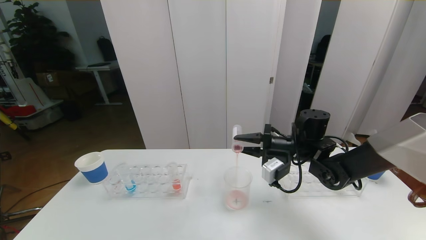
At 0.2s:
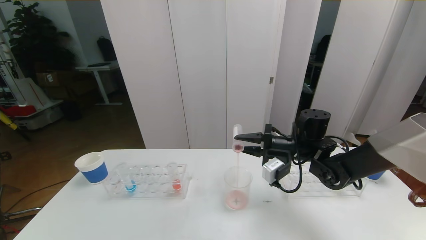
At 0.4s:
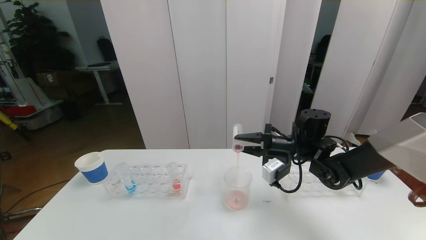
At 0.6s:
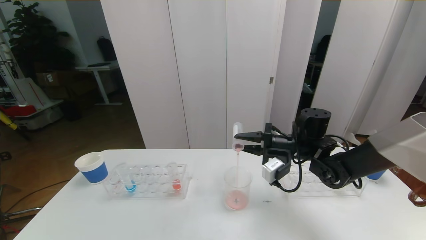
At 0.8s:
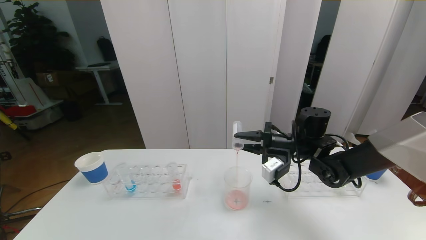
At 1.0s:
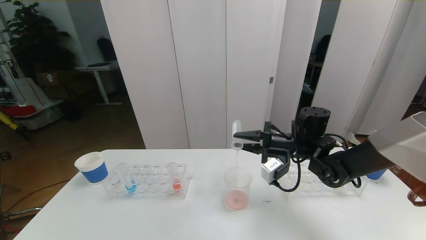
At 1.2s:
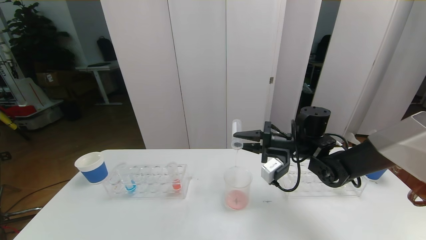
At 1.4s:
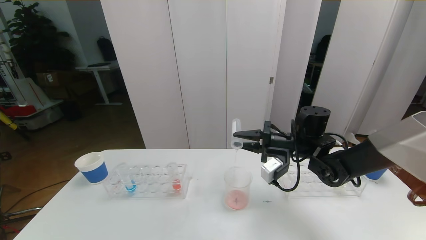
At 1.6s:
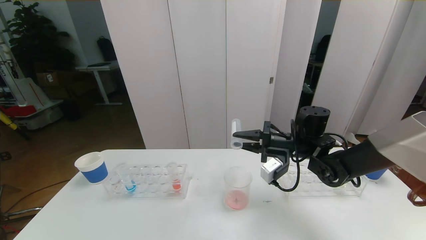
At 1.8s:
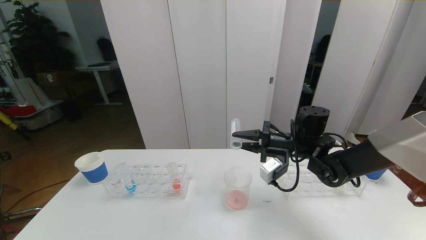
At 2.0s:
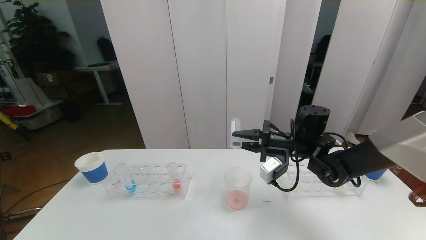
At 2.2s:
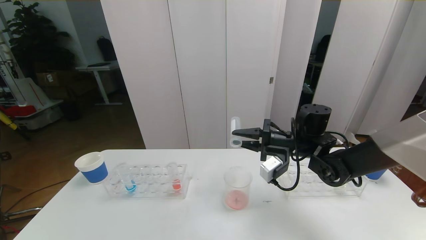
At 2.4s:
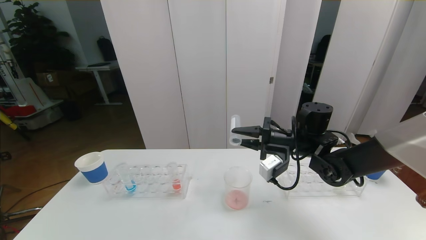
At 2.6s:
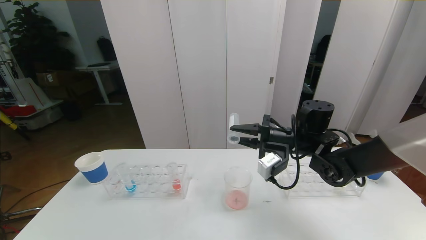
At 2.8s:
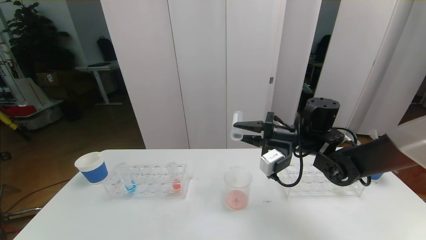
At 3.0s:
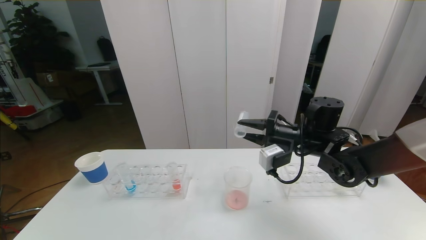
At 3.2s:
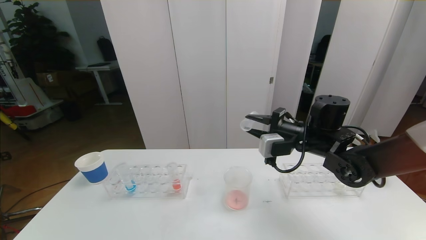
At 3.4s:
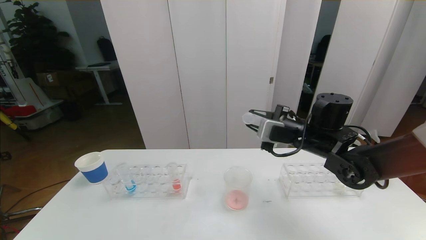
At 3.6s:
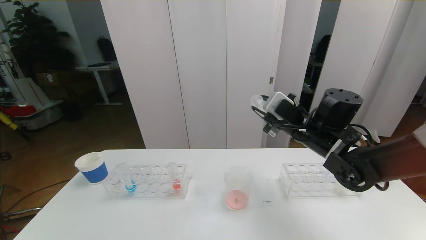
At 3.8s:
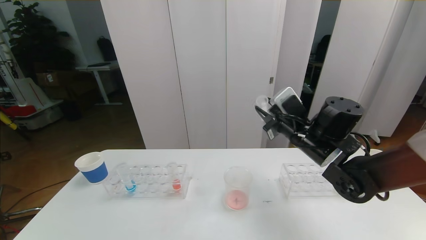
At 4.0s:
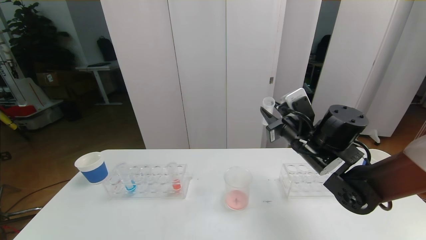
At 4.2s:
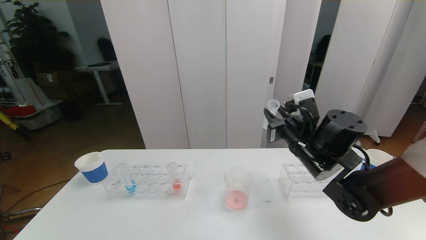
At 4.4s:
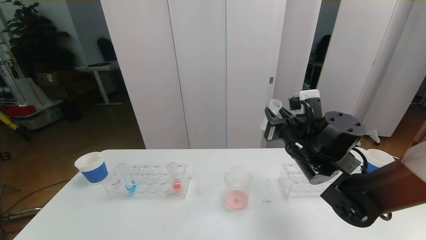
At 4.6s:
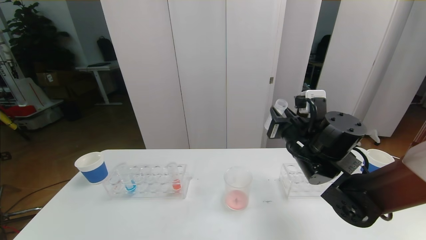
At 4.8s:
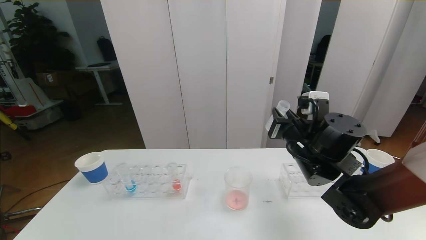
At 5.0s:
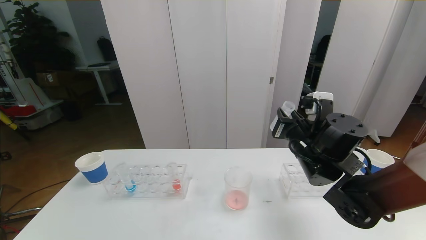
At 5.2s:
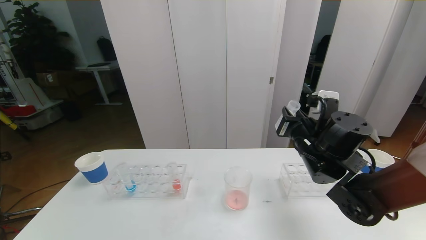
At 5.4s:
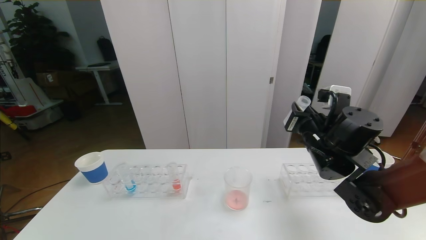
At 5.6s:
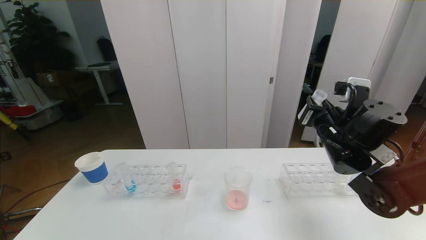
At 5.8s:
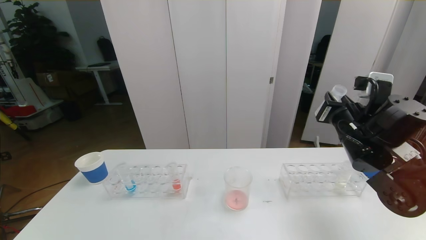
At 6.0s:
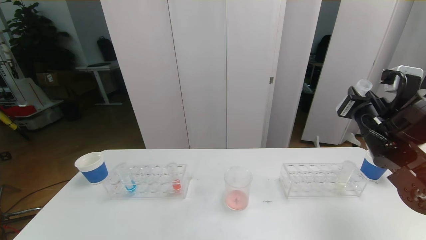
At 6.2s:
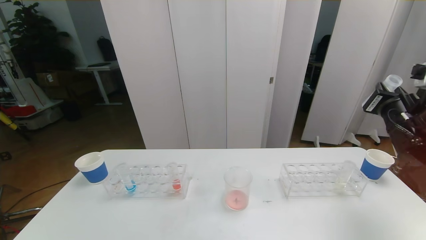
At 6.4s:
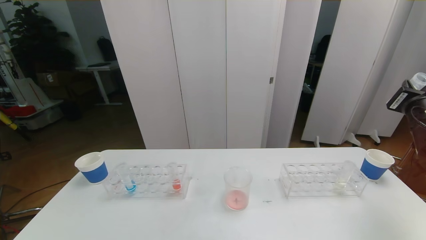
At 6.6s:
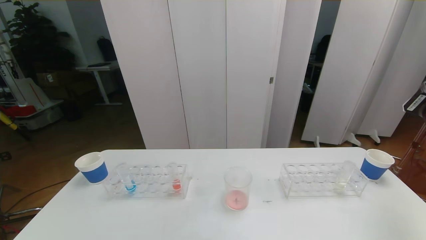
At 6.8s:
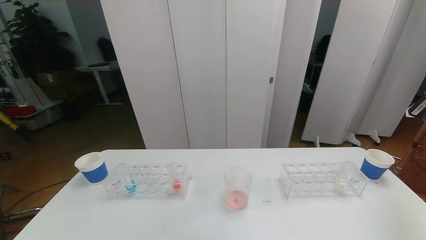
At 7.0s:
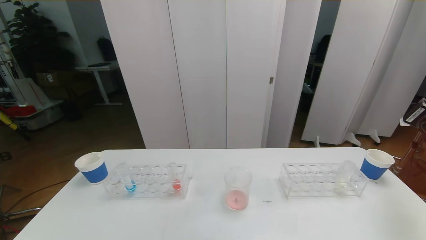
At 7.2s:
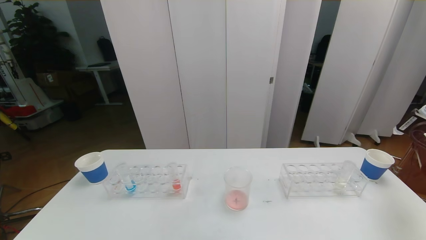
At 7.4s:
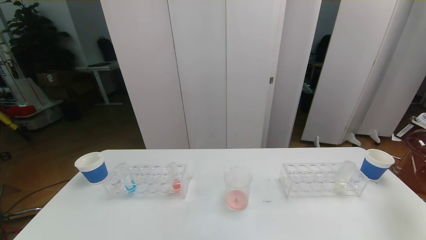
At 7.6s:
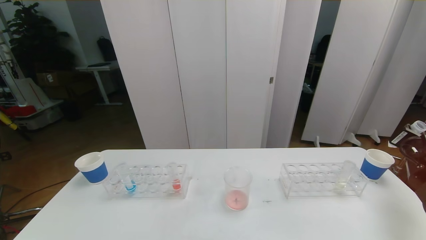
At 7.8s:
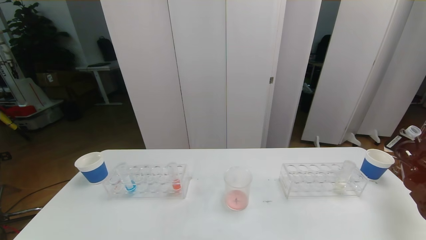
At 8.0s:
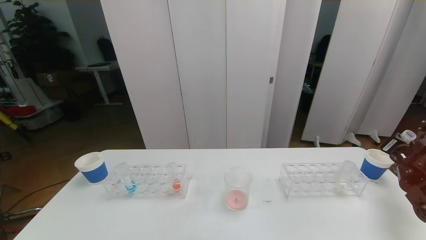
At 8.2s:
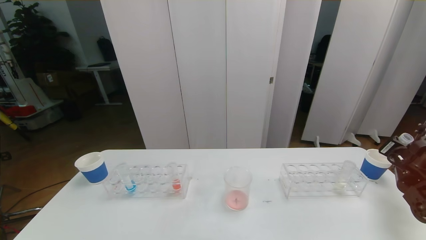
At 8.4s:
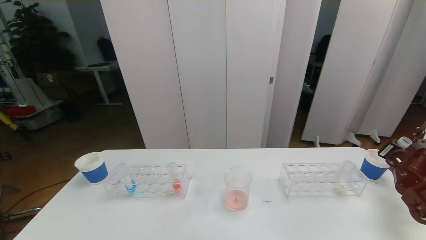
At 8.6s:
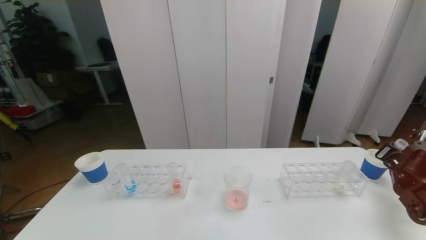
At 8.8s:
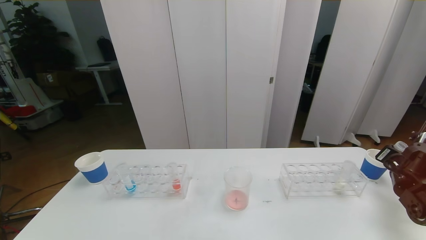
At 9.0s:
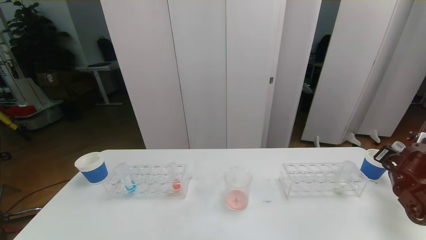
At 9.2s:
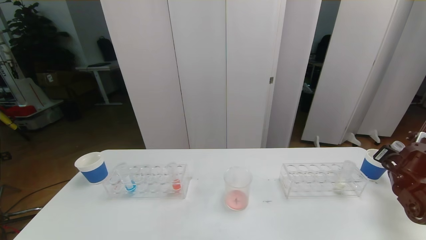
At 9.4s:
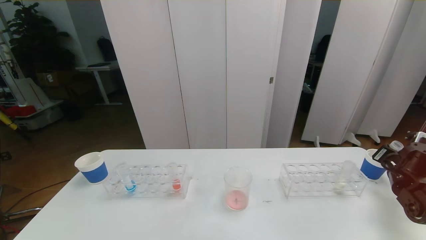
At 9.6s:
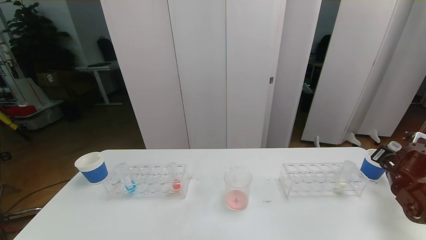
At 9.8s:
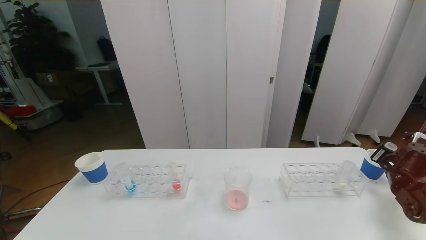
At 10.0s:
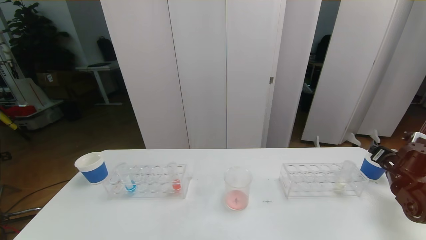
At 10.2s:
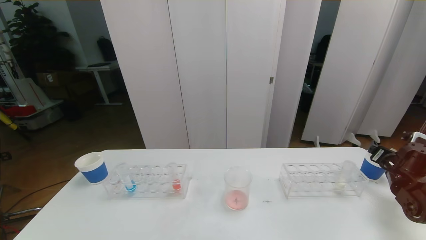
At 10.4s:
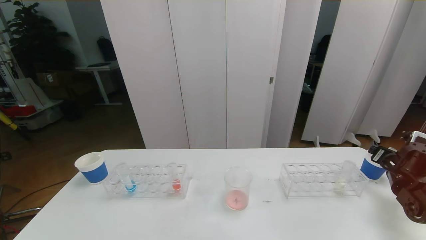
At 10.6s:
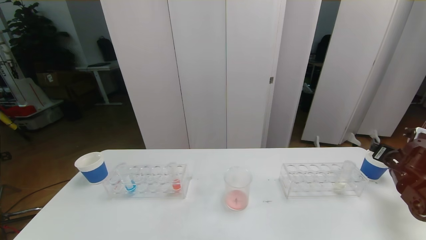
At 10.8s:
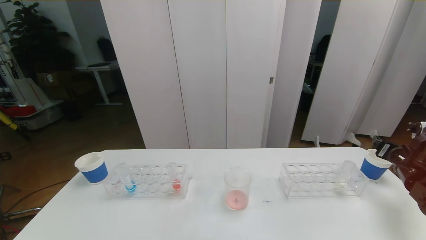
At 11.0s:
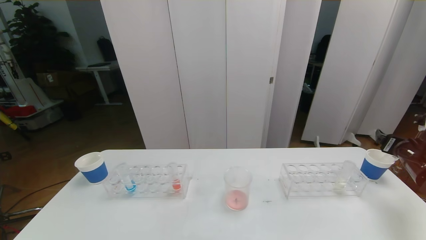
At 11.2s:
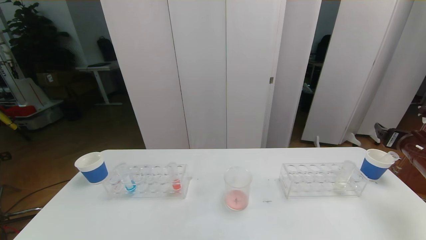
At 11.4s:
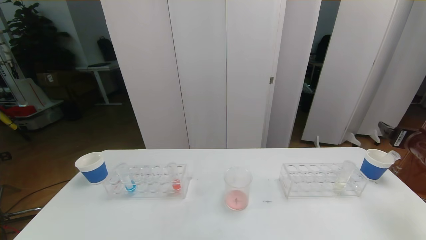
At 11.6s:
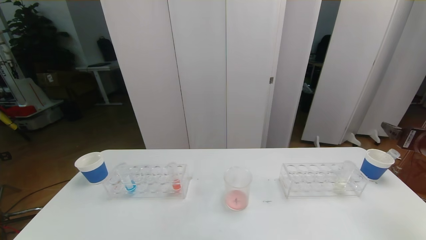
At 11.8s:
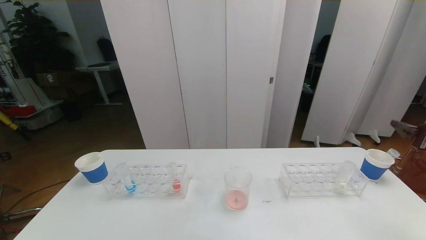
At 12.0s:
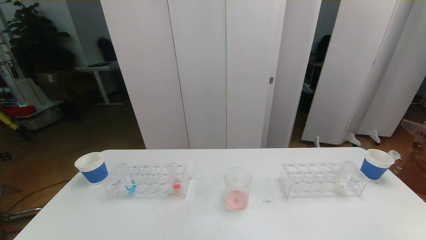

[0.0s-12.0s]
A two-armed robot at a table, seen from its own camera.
Task of the whole recording: pick up the test tube with red pigment the test tube with blue pigment and the test tube with white pigment by grippers and pour them into the beaker.
0.0s to 3.0s: The grippers stay close to where they were, moving slightly.
3.0s to 4.4s: The right gripper changes place by roughly 5 cm.
4.4s to 6.0s: The right gripper travels to the right by some 15 cm.
6.0s to 7.6s: The right gripper heads to the right and downward, covering about 15 cm.
7.6s to 9.0s: The right gripper heads downward, covering approximately 5 cm.
9.0s to 10.4s: The right gripper opens.
10.4s to 12.0s: The right gripper goes about 25 cm upward and backward.

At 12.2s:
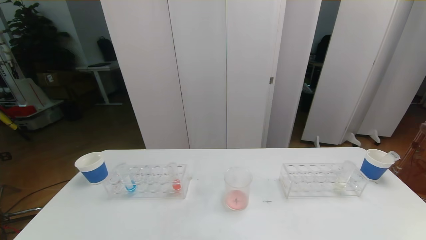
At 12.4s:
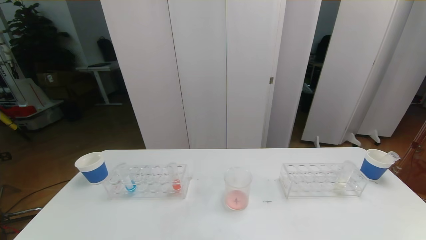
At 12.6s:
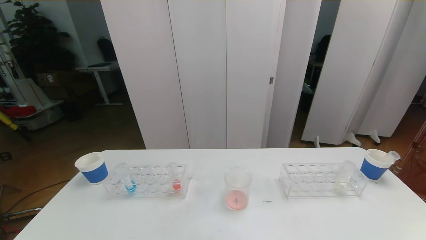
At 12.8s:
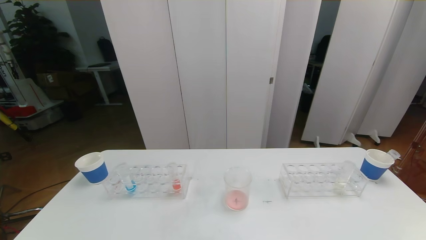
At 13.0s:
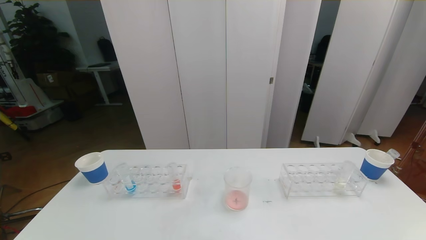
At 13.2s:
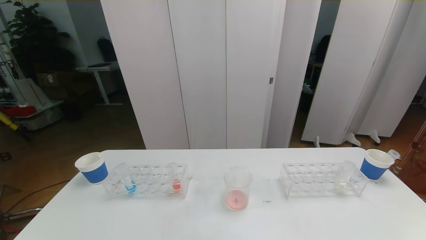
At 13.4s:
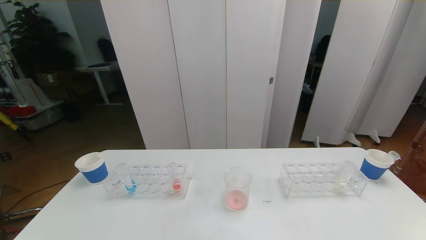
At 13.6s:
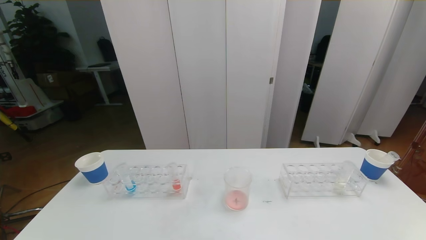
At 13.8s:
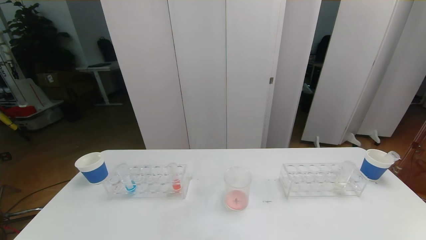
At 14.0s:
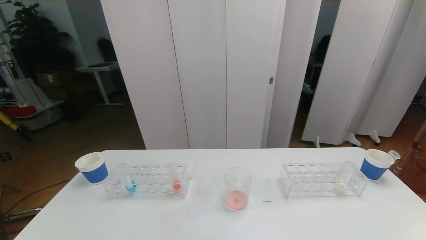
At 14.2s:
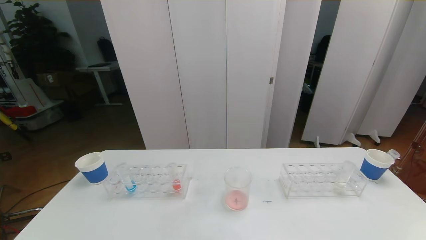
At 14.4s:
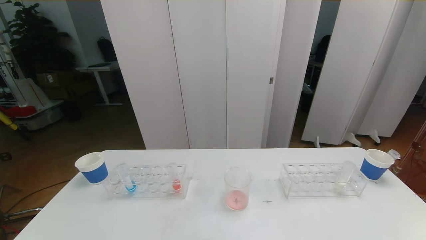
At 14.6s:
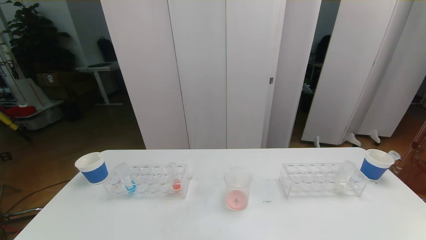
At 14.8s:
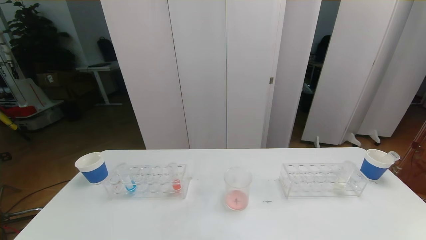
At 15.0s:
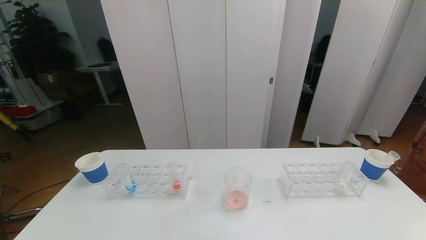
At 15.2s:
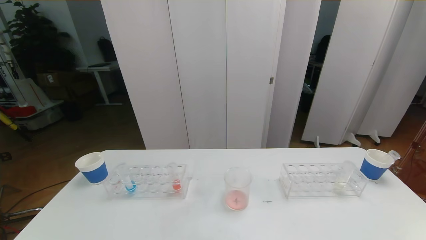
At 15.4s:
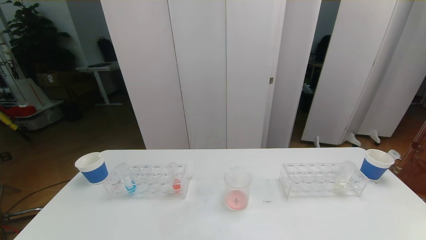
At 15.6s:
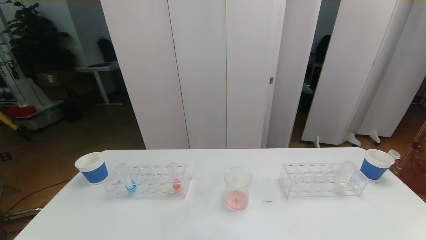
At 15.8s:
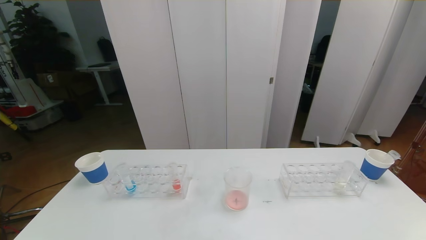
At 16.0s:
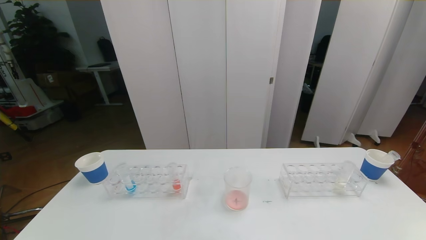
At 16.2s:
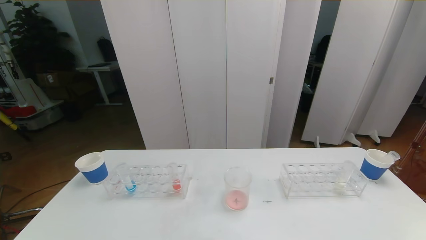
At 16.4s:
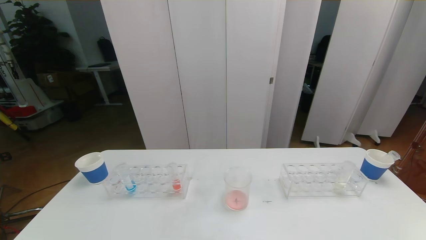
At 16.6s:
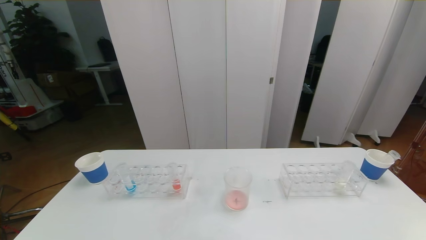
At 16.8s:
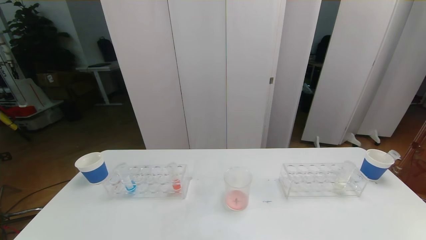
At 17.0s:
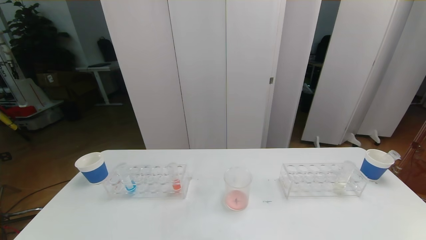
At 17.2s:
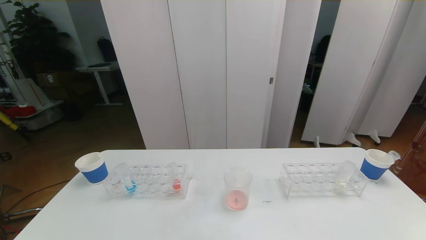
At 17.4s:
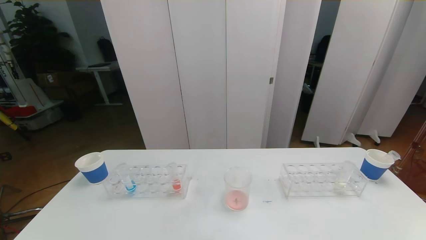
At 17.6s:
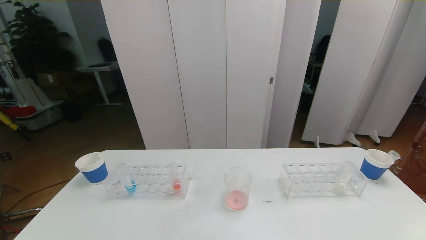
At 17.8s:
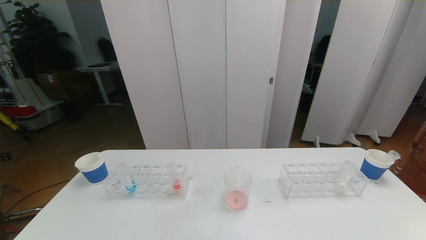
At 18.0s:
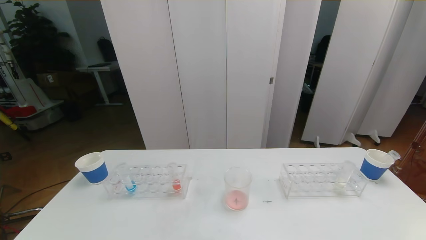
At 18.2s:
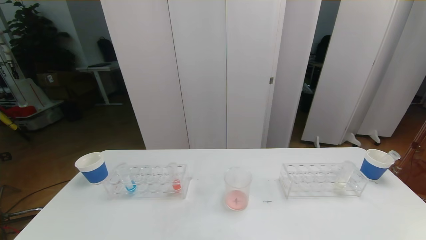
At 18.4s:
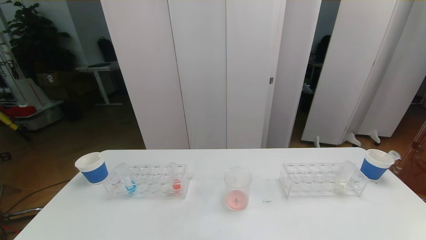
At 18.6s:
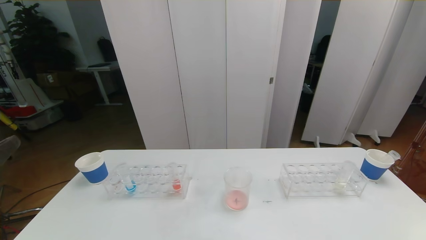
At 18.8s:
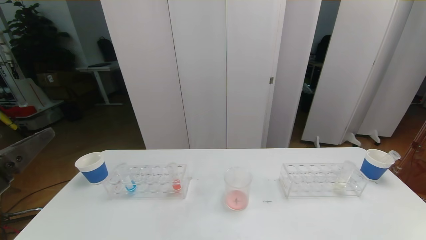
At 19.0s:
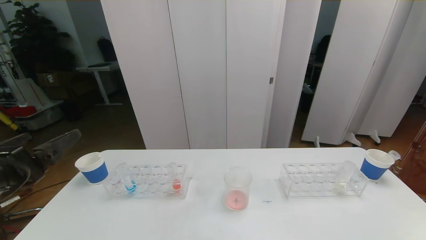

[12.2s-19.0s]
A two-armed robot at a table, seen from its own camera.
Task of the whole recording: pick up the test tube with red pigment the test tube with blue pigment and the test tube with white pigment by grippers and pour them into the beaker.
15.0s to 16.2s: Both grippers stay about where they are.
